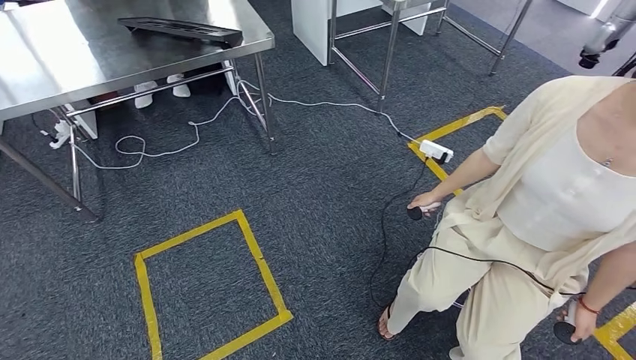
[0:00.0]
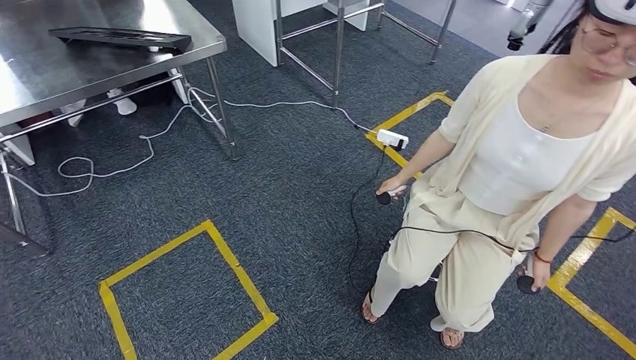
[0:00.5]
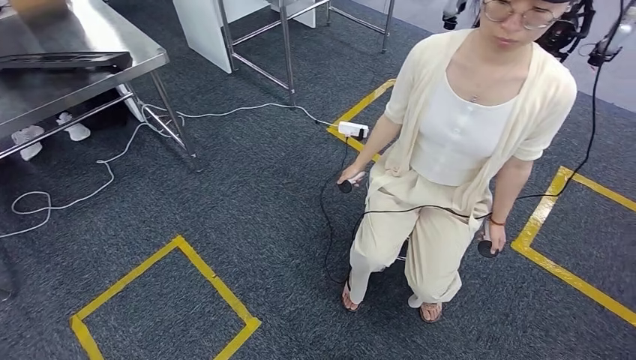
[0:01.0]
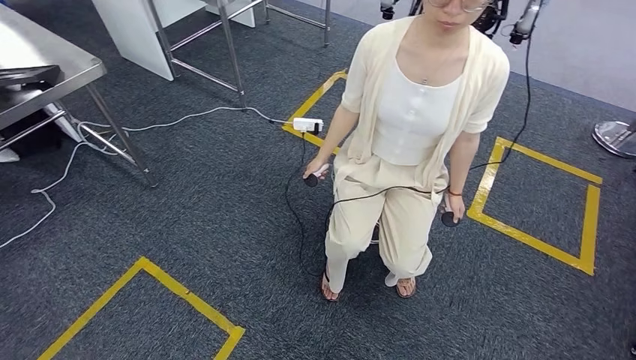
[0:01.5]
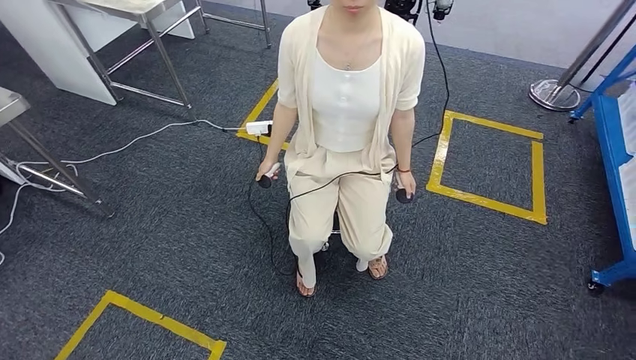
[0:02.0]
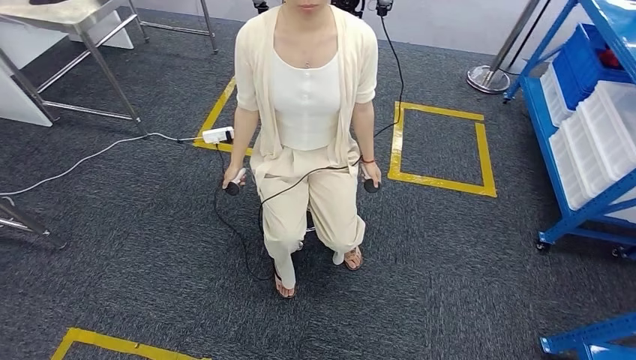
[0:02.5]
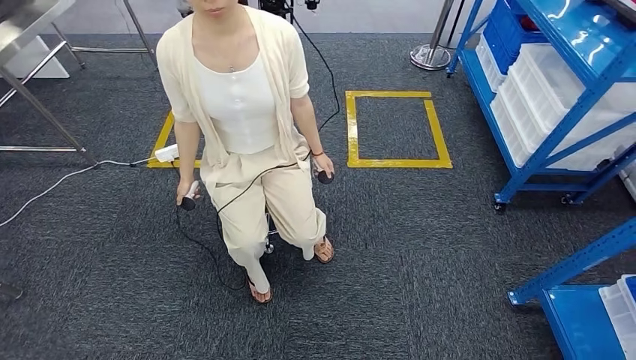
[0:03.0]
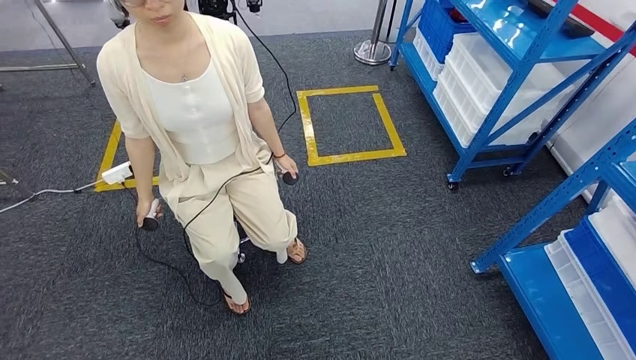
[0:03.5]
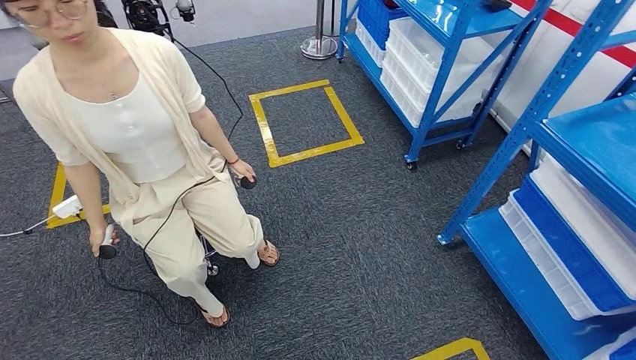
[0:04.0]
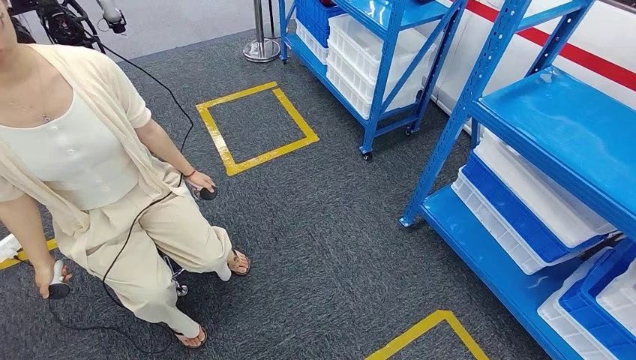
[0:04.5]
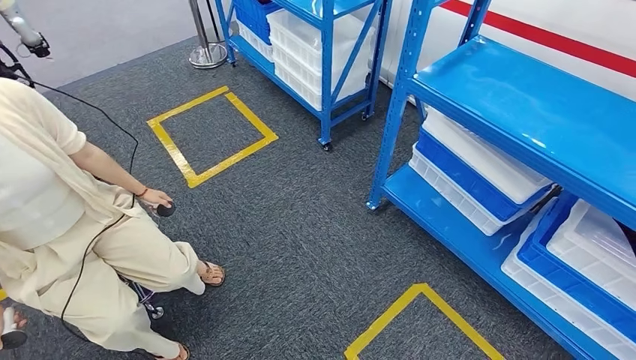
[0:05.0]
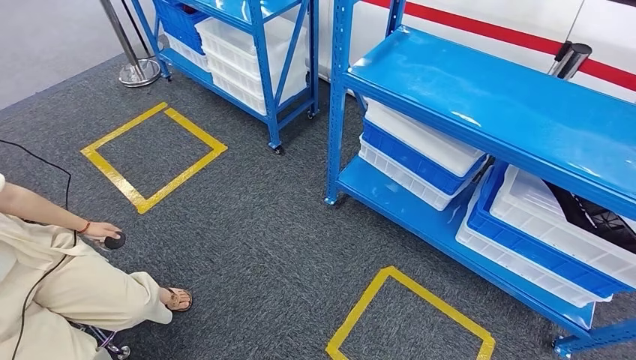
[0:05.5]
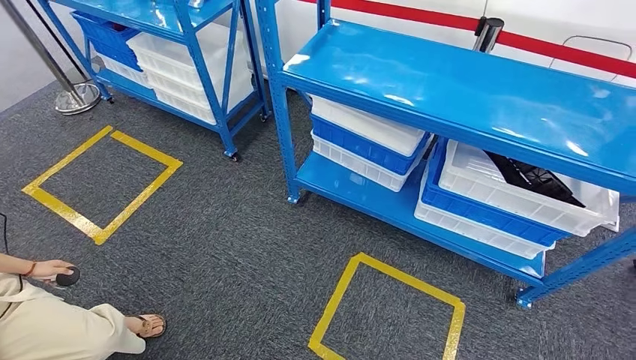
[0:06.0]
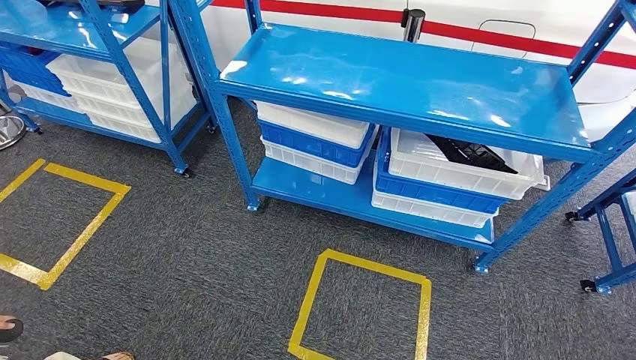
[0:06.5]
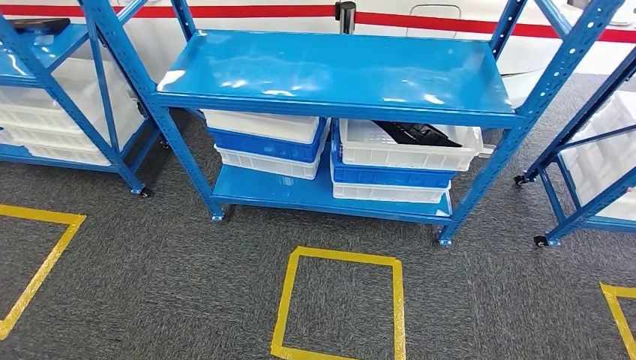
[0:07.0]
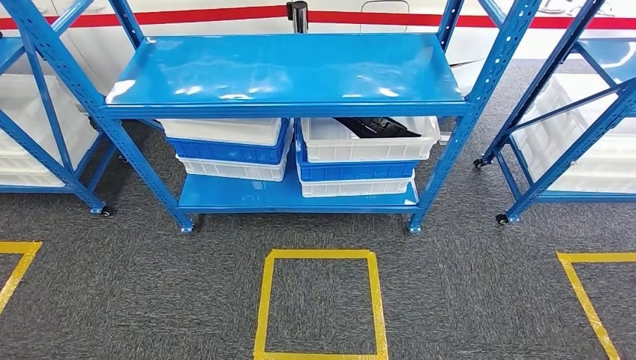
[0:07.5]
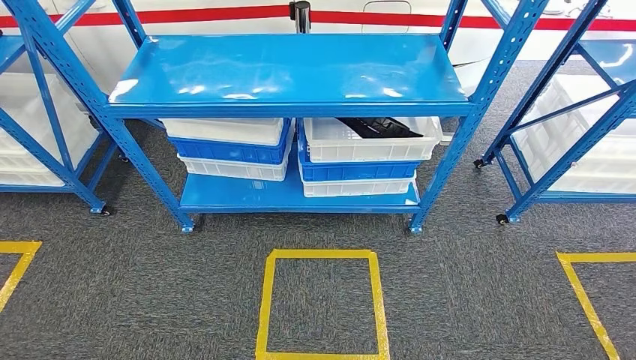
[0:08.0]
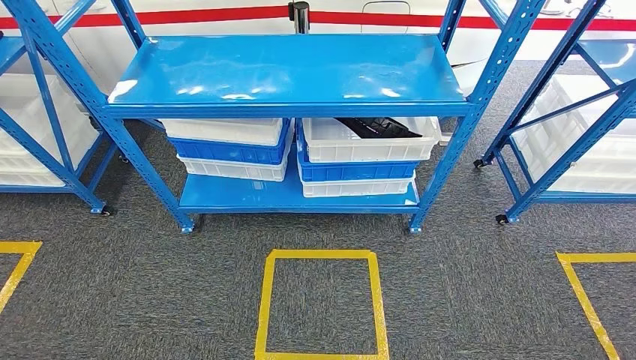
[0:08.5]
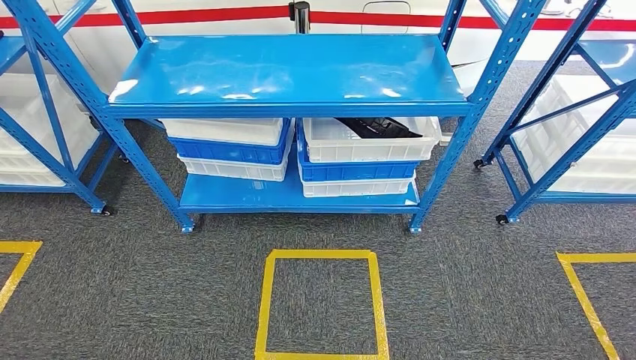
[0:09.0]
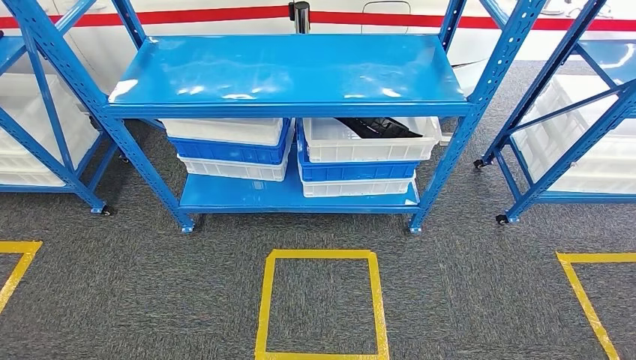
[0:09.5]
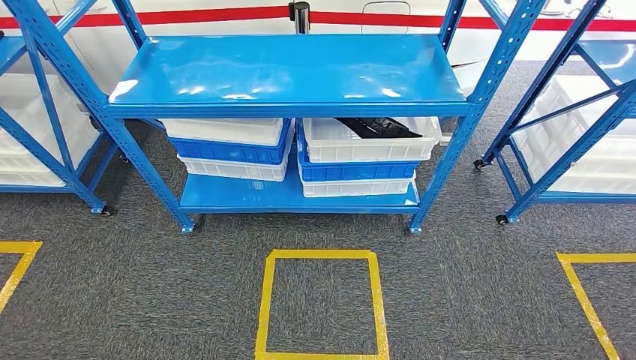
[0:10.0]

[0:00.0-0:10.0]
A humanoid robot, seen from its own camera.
Step, 0:00.0 to 0:10.0: Move to the initial position of the shelf.
0:08.0 to 0:10.0: The left hand ends up about 5 cm from where it was. The right hand is displaced backward by about 5 cm.
